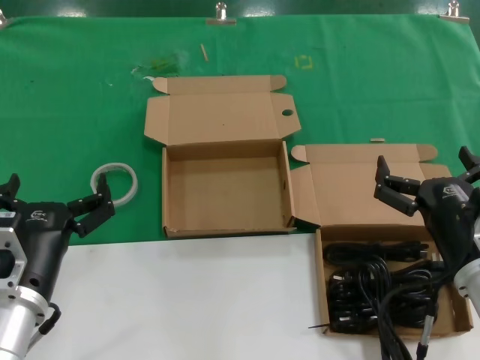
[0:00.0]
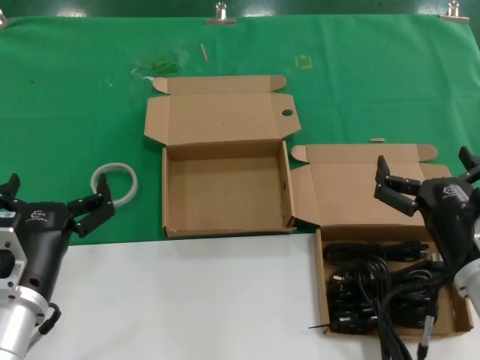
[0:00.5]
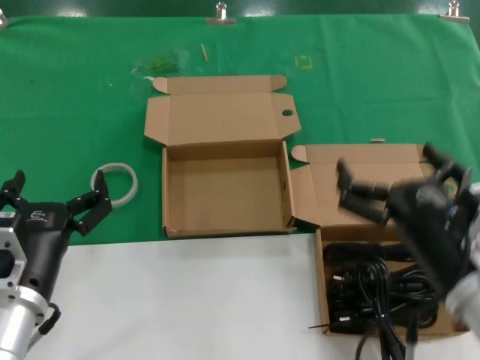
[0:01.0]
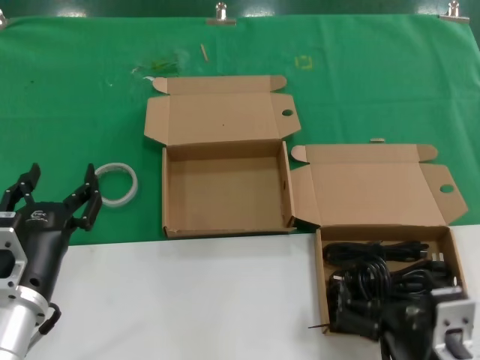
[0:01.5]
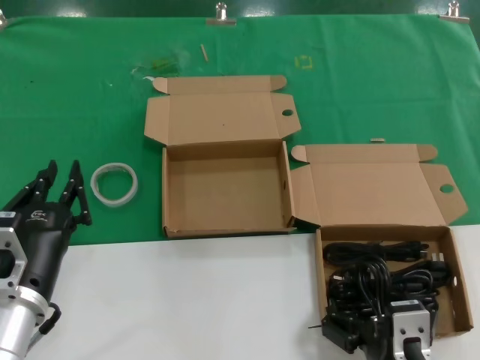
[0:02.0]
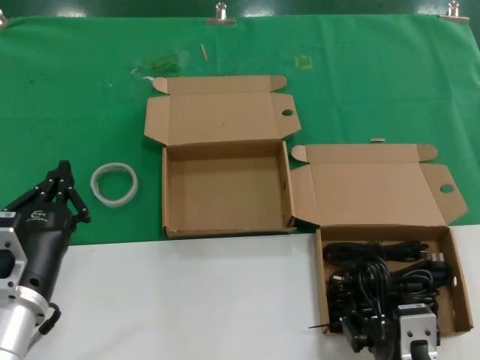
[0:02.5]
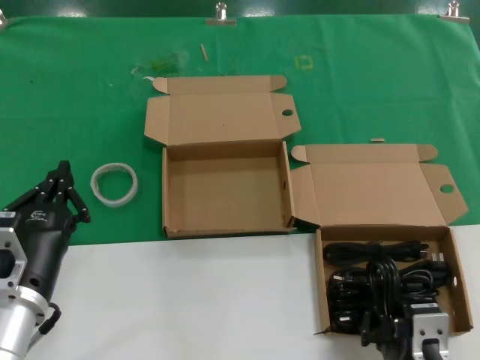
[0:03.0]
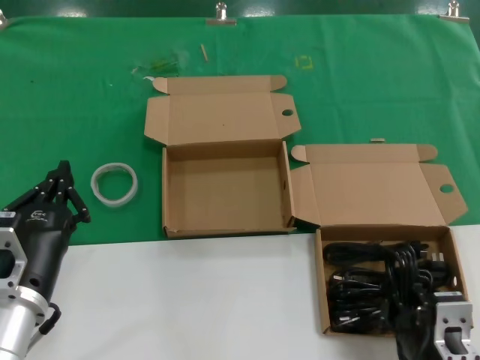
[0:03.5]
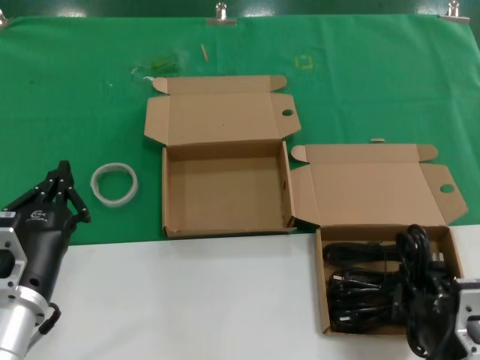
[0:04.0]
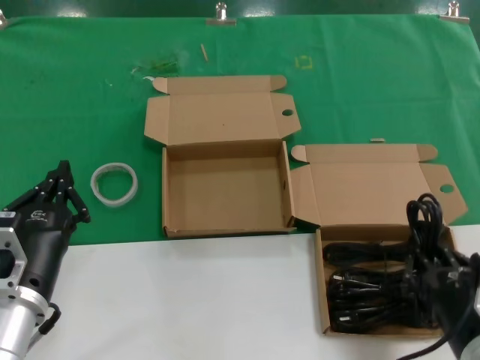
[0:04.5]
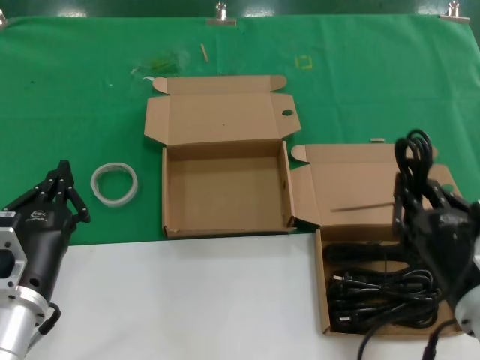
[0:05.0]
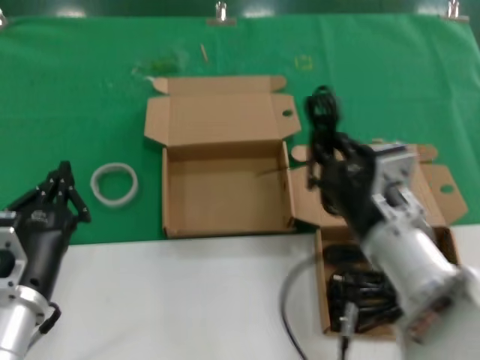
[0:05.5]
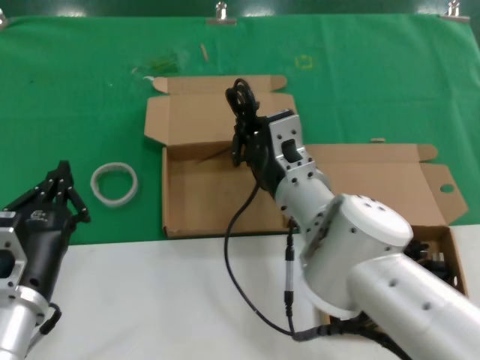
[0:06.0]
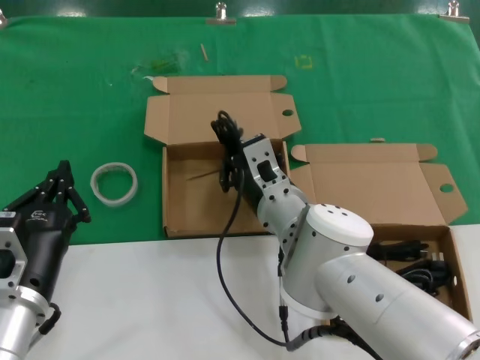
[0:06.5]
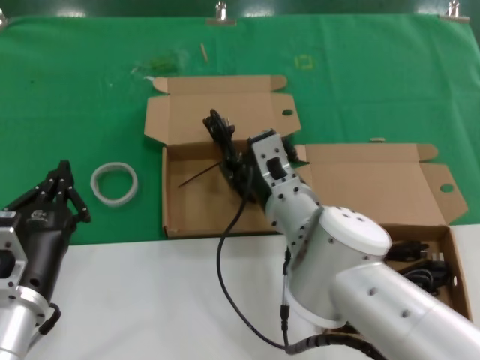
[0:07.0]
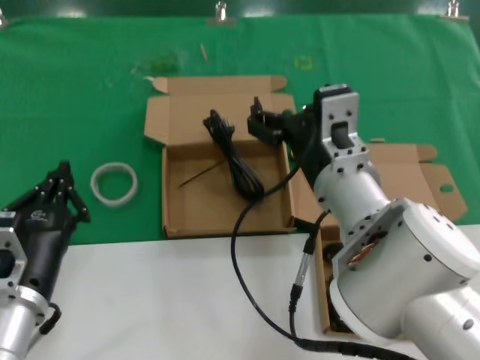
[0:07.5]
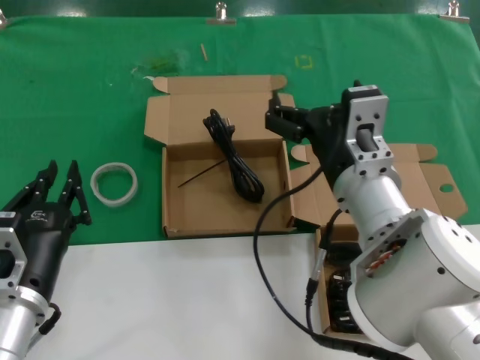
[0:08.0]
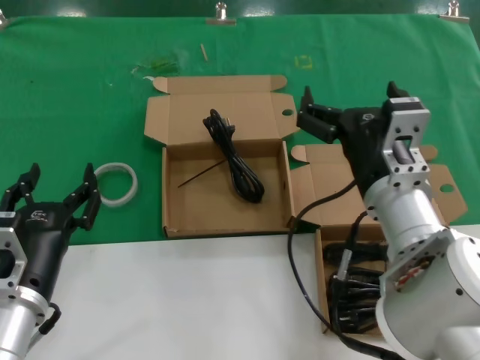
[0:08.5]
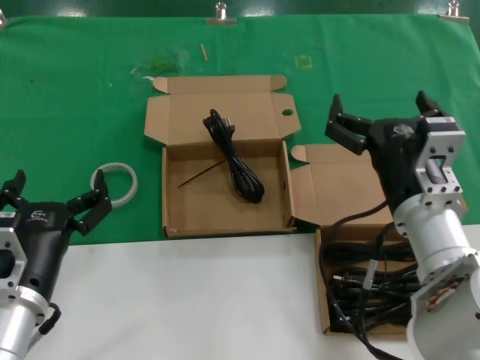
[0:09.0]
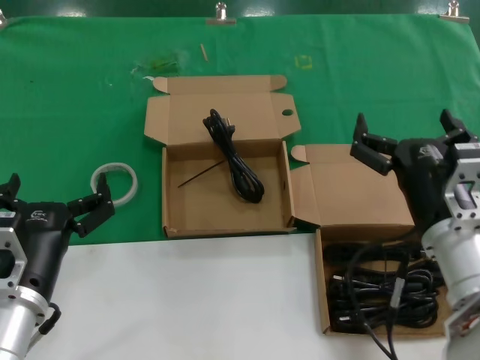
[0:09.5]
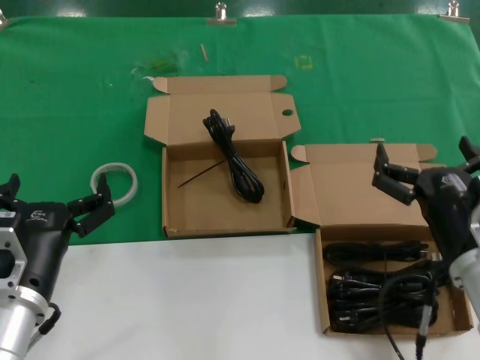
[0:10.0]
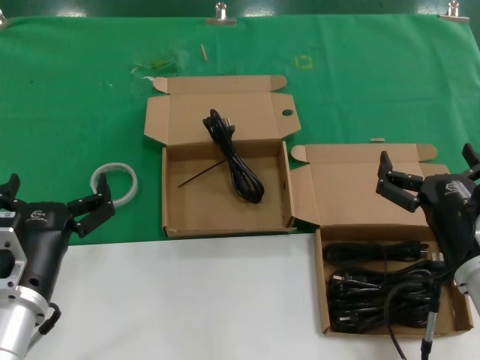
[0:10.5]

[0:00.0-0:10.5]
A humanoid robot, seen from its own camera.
Task of the whole recording: Pick up the power cord from the box containing it and place it in another box.
Step, 0:00.0 to 0:03.0: Grasp the data cable.
Step, 0:03.5 to 0:07.0: Place the data cable in the another box.
0:00.0 to 0:02.0: The right hand travels backward and to the left by approximately 15 cm.
0:02.0 to 0:04.0: The right hand moves to the right, some 5 cm.
0:04.0 to 0:06.5: The right hand is displaced forward and to the left by about 30 cm.
0:06.5 to 0:08.5: The right hand shifts some 15 cm to the right, backward and upward.
0:08.5 to 0:10.5: The right hand goes some 15 cm to the right, downward and backward.
